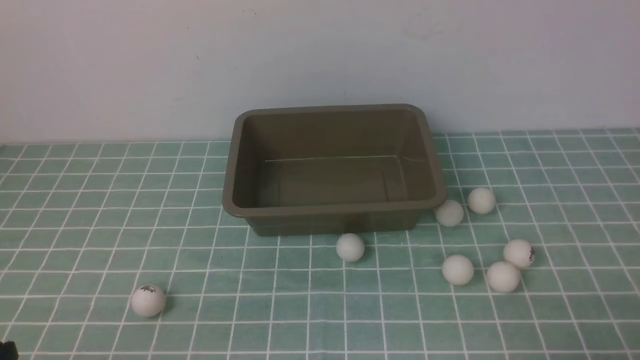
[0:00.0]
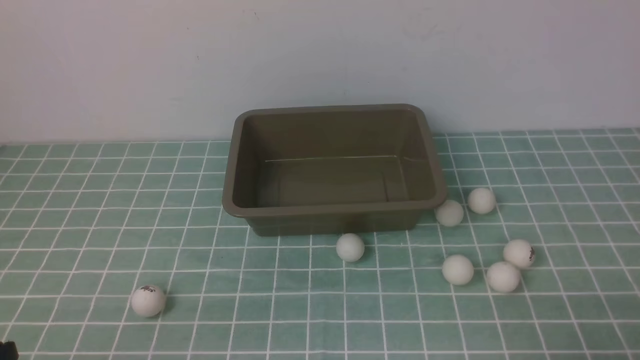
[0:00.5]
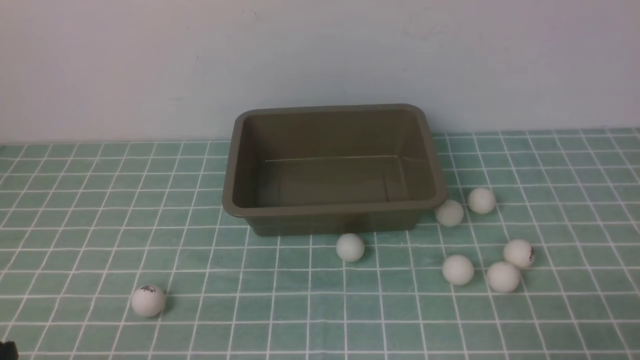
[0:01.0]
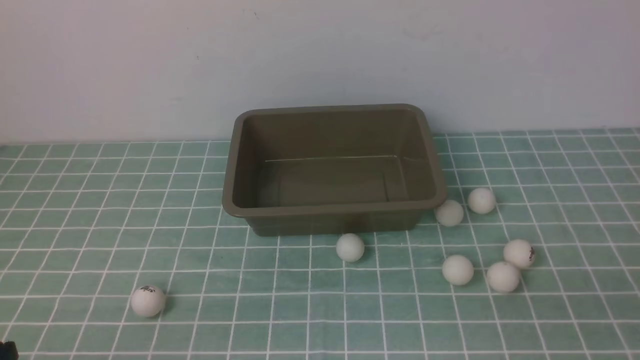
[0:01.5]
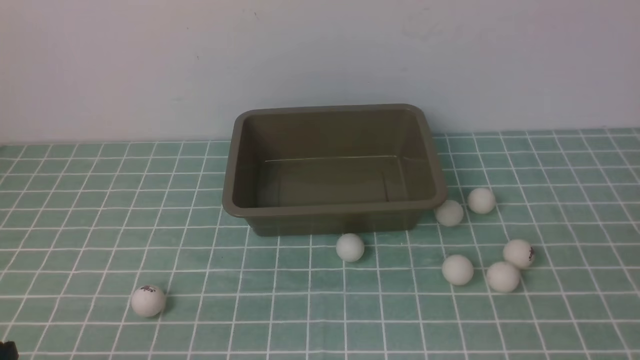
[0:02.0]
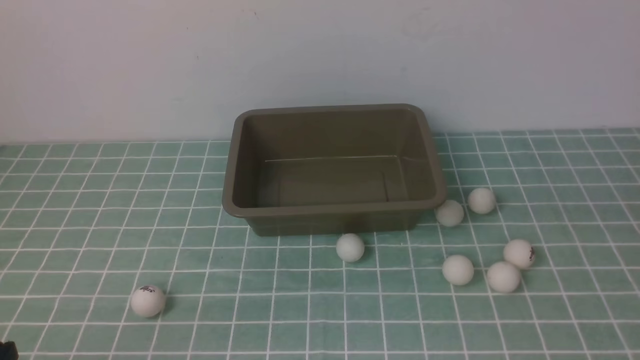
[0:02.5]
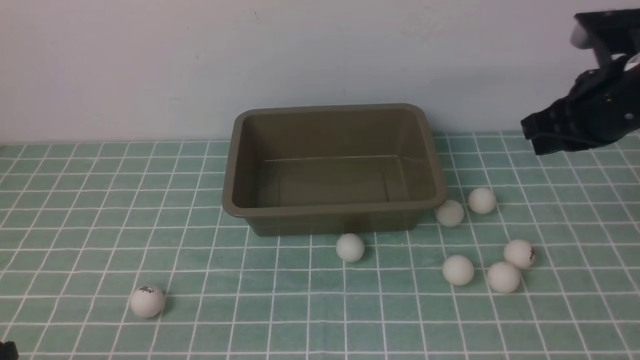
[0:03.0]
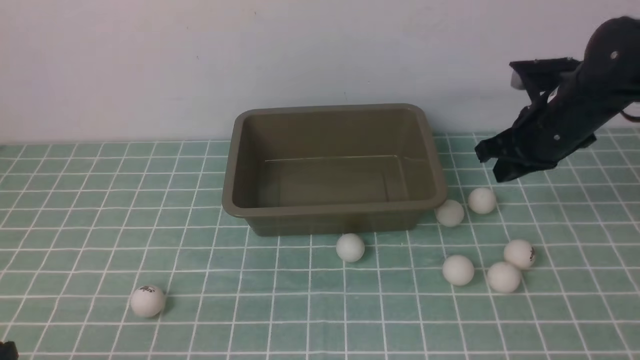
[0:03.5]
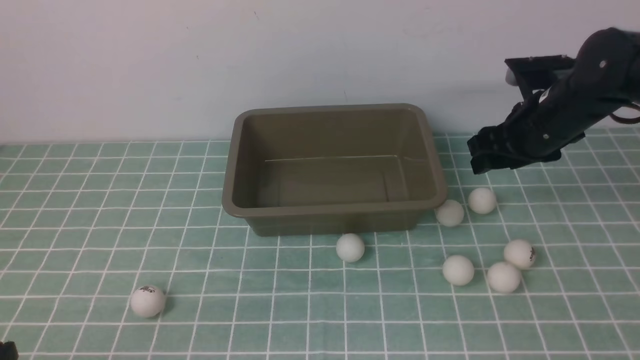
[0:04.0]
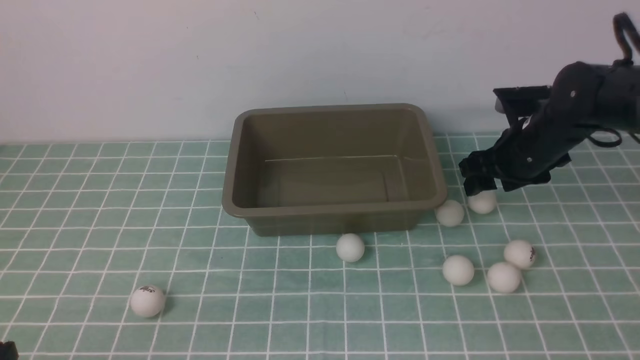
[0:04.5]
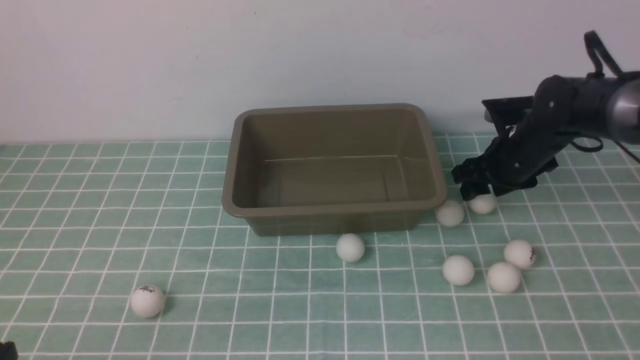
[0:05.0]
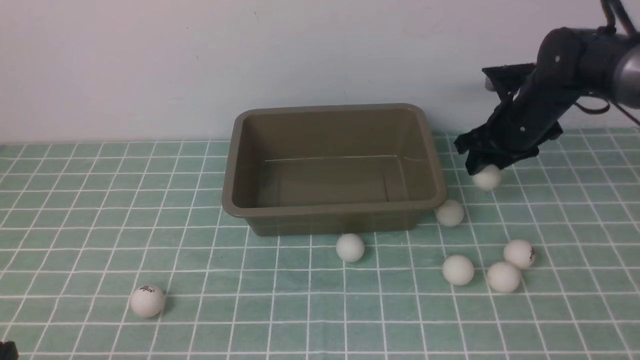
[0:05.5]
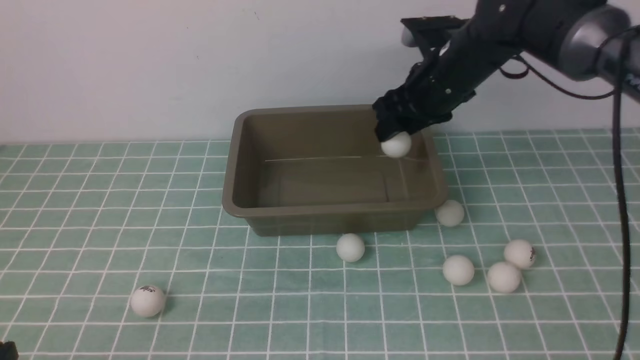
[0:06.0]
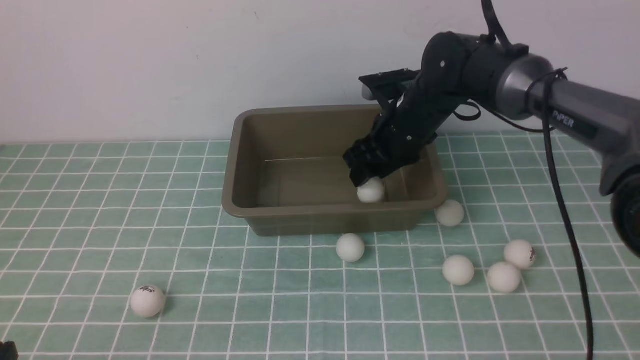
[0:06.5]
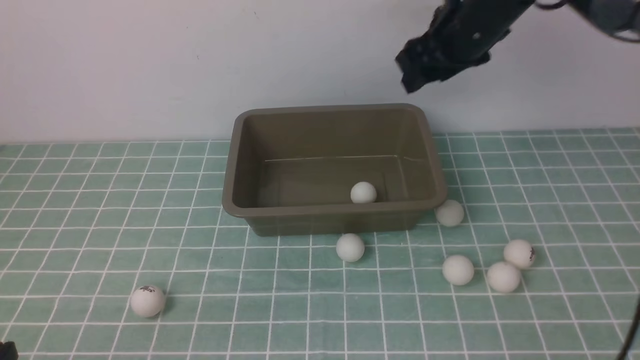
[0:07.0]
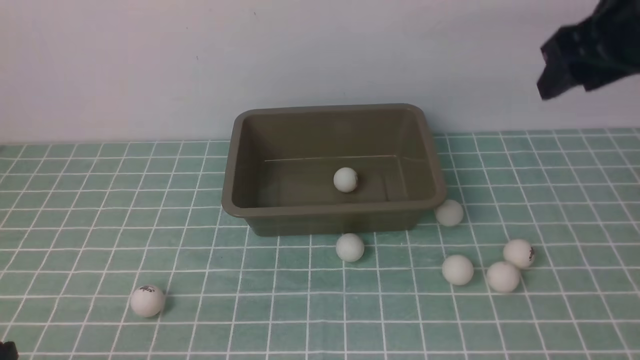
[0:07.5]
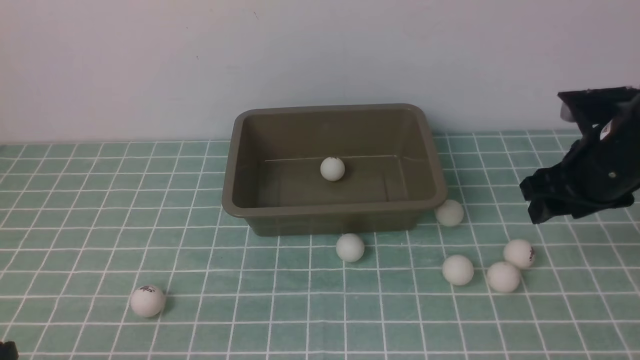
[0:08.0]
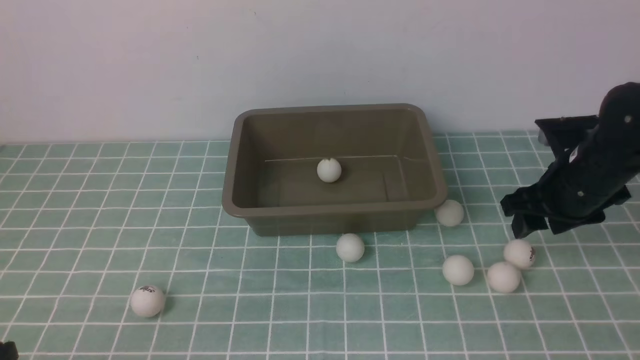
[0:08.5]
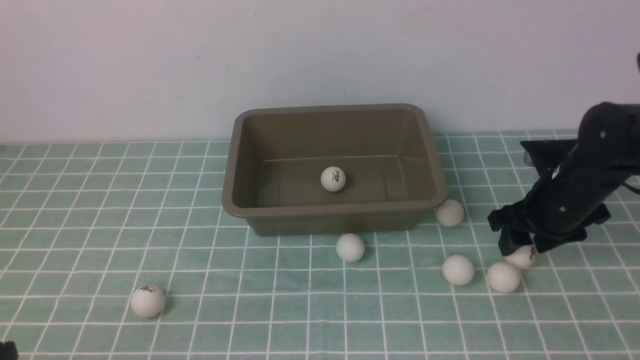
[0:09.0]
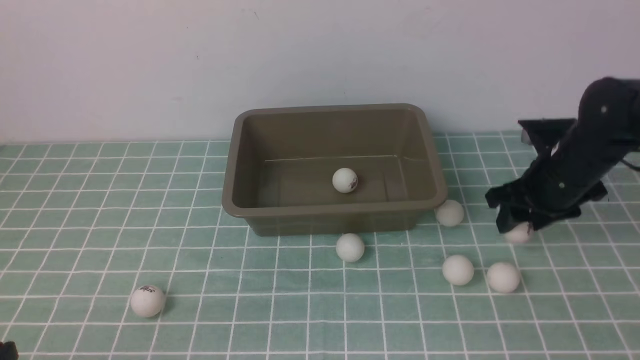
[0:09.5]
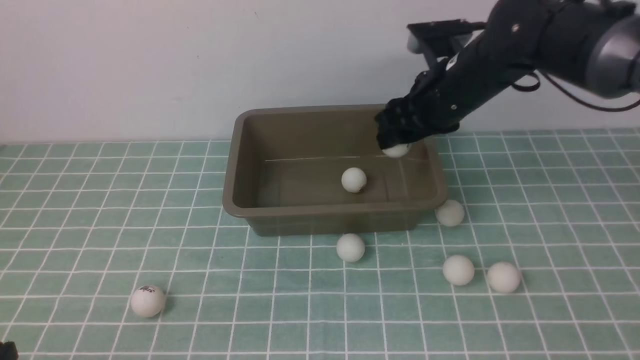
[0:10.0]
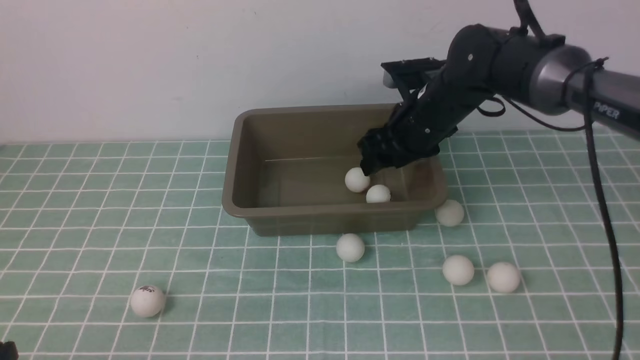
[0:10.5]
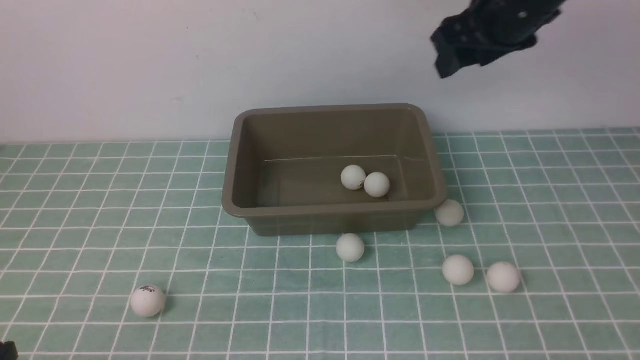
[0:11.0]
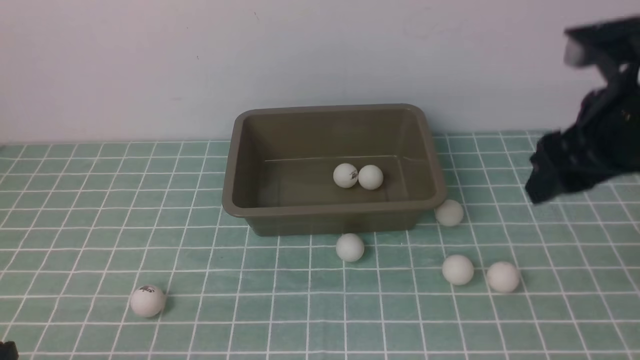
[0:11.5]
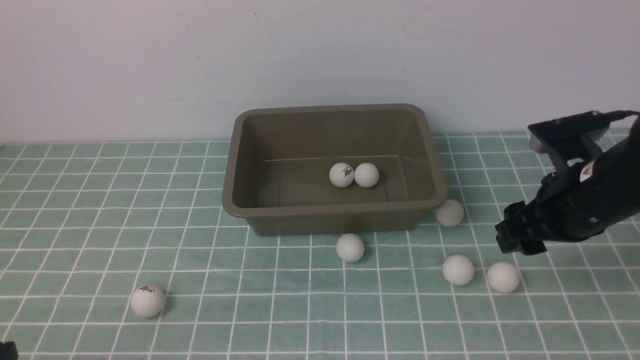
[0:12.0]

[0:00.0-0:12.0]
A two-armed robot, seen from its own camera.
Step, 0:00.0 to 0:05.0: use the right arm to clamp the table tennis ball closest to it.
Step, 0:05.5 to 0:06.5: use the right arm to put the table tennis ball into the box.
Step, 0:07.0 to 0:09.5: use the right arm to clamp the table tennis ball closest to it.
Step, 0:10.0 to 0:10.5: use the right arm to put the table tennis ball into the box.
0:02.0 to 0:04.0: The right gripper travels forward by some 35 cm, and opens.
0:04.0 to 0:06.0: The right gripper travels to the left by about 10 cm.
0:06.0 to 0:08.0: The right gripper shifts some 15 cm to the right and backward.
0:08.0 to 0:10.0: The right gripper travels to the left and forward by approximately 15 cm.
0:10.0 to 0:12.0: The right gripper shifts about 15 cm backward and to the right.

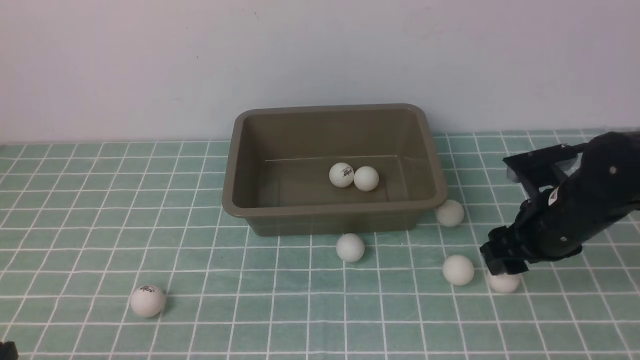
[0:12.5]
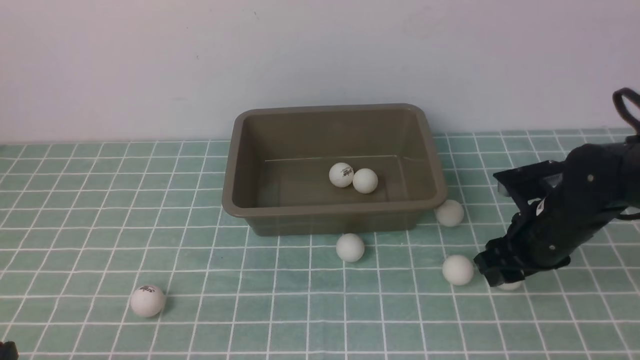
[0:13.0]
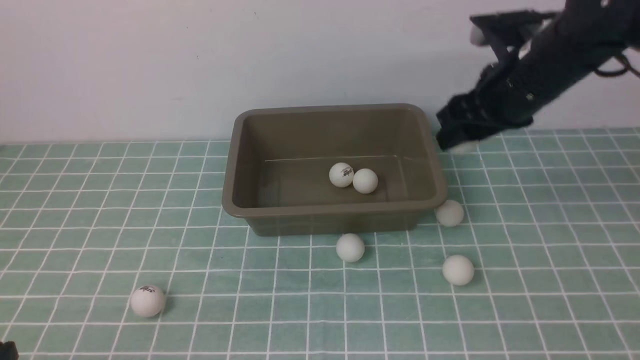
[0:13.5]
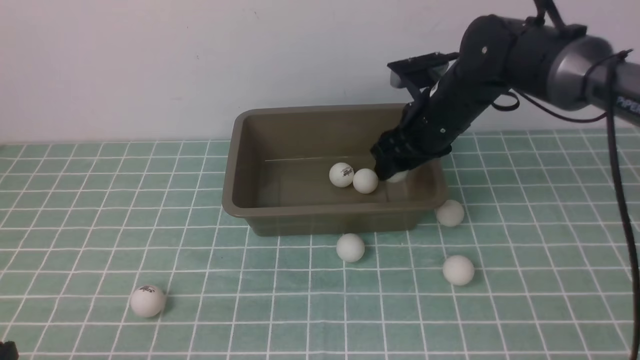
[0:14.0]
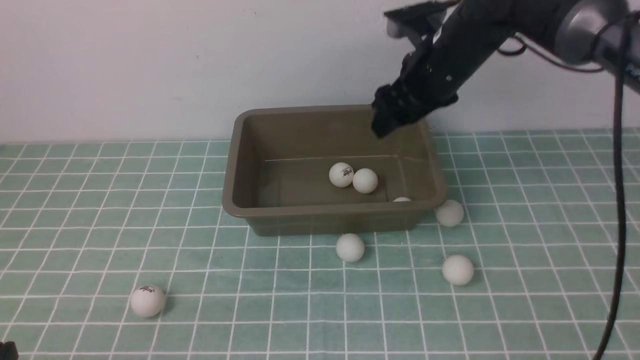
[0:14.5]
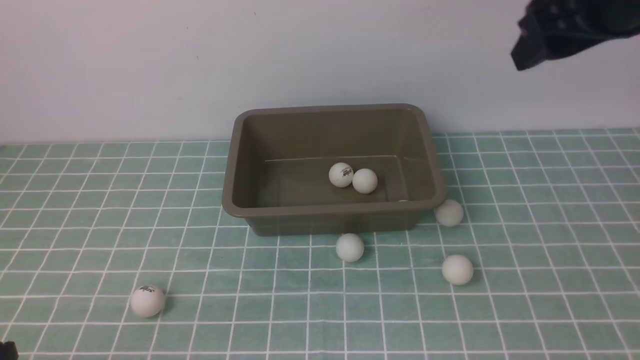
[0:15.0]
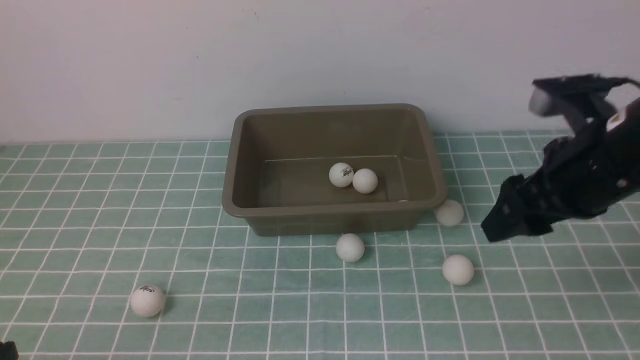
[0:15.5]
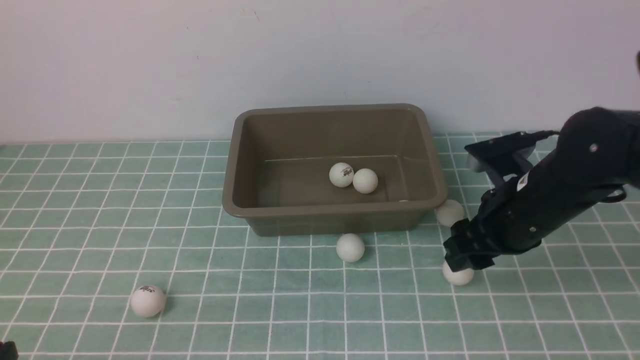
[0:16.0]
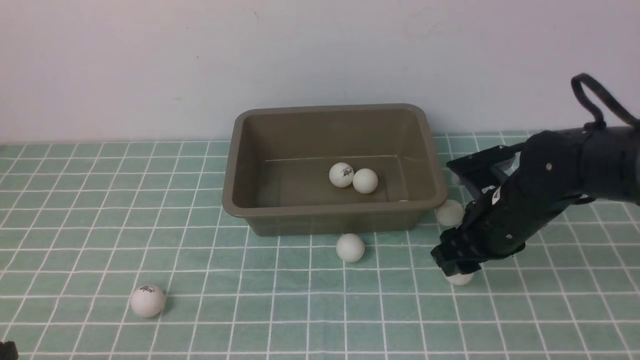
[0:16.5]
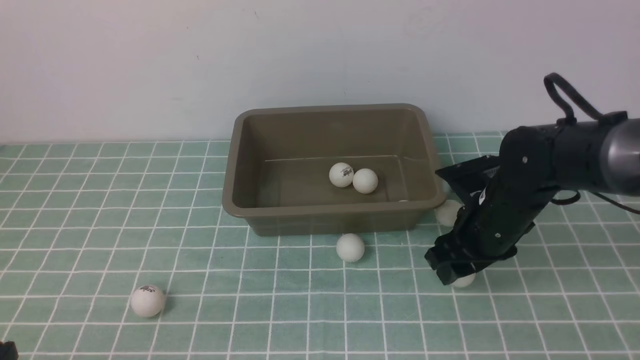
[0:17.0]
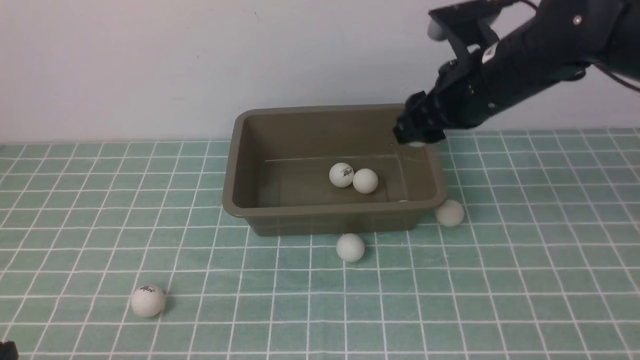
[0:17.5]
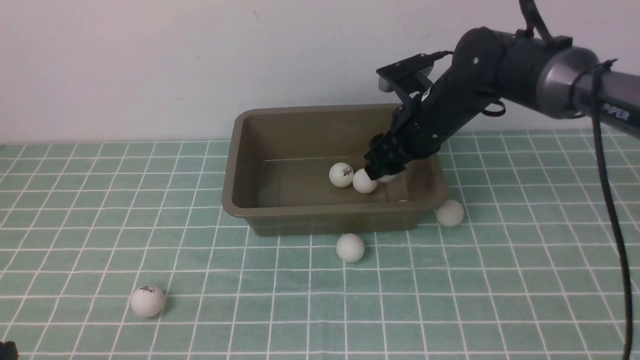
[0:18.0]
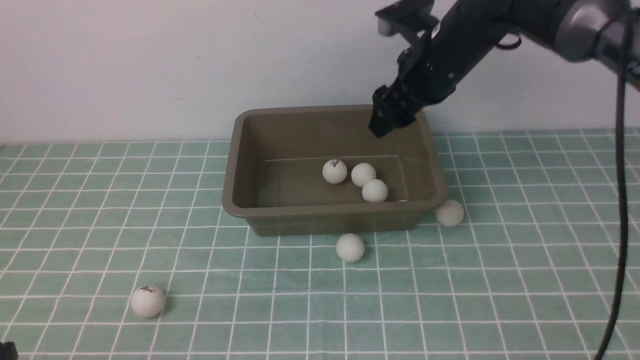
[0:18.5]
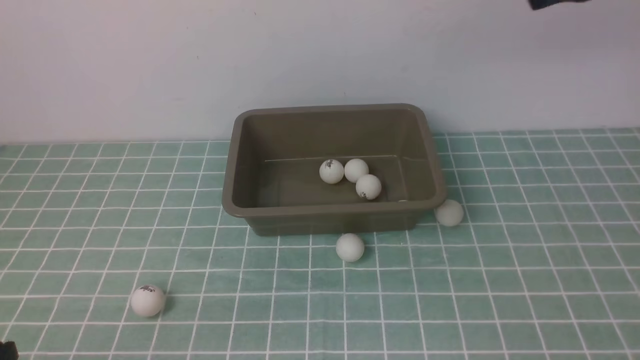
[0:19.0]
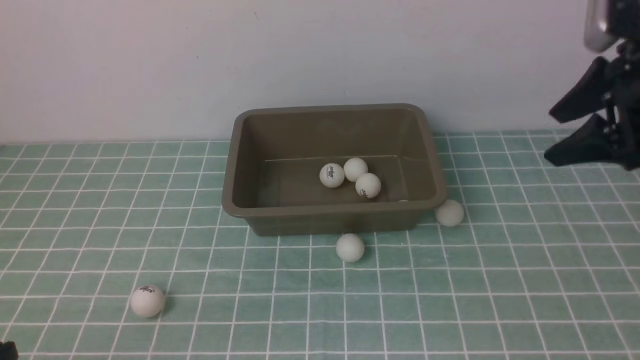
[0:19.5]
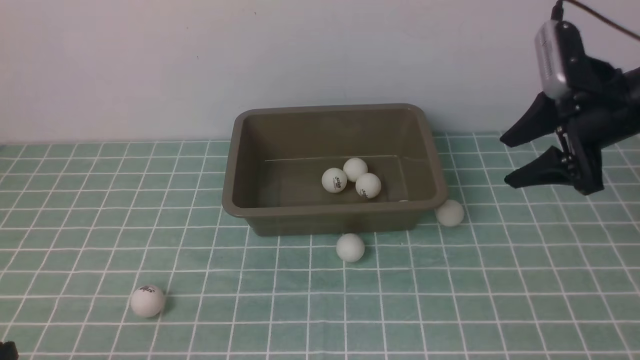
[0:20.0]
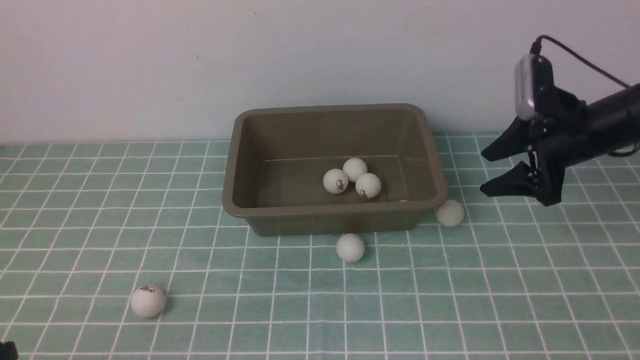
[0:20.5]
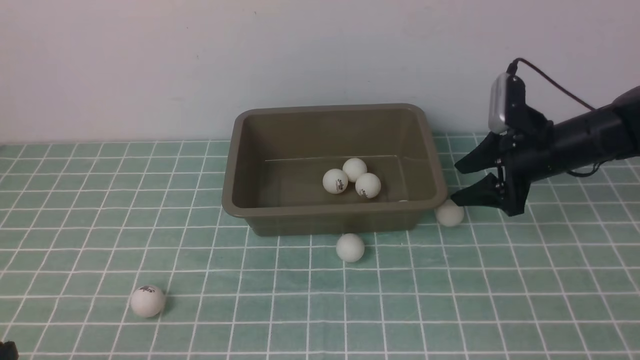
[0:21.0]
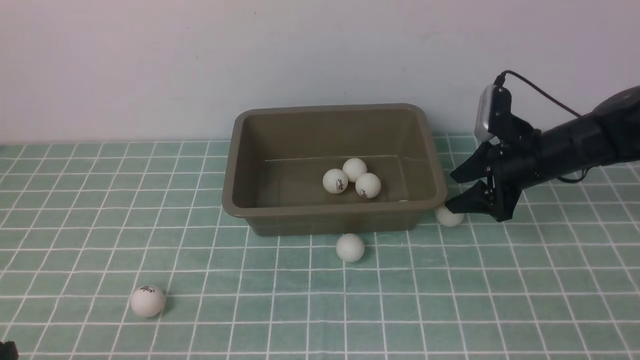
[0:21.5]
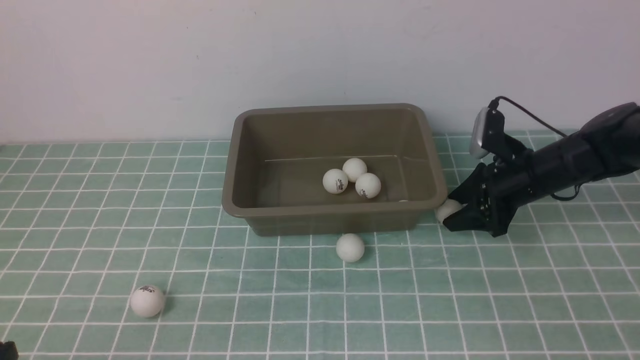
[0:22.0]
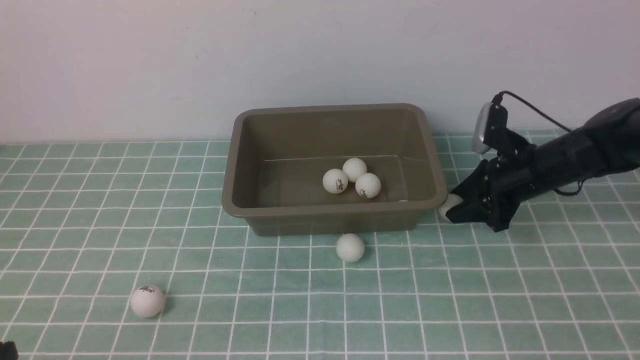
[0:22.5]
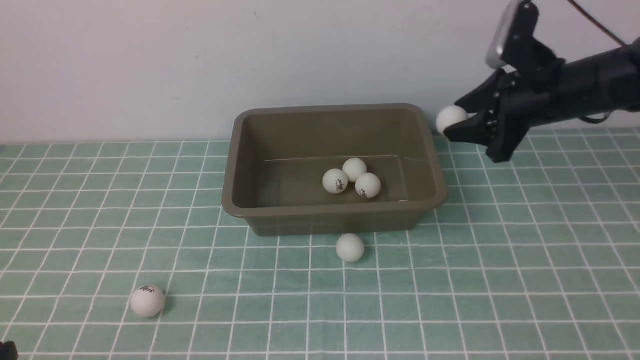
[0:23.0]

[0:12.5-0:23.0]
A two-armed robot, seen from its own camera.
Step, 0:13.5 to 0:14.0: use the right arm to put the table tennis ball into the box.
Step, 0:14.5 to 0:17.0: use the right arm to clamp the table tennis ball closest to it.
Step, 0:17.5 to 0:18.0: use the right arm to put the table tennis ball into the box.
Step, 0:18.5 to 0:22.5: use the right arm to clamp the table tennis ball closest to it.
0:12.5 to 0:14.5: The right gripper moves up and down over approximately 15 cm, changing direction 2 times.
0:14.5 to 0:16.5: The right gripper goes approximately 15 cm downward and backward.
0:16.5 to 0:19.0: The right gripper goes roughly 25 cm upward.
0:19.0 to 0:21.0: The right gripper shifts about 25 cm downward.
0:21.0 to 0:23.0: The right gripper moves to the left and upward, some 10 cm.
